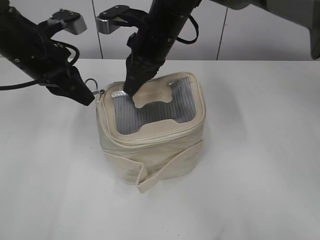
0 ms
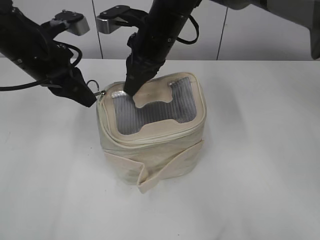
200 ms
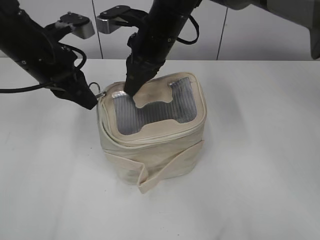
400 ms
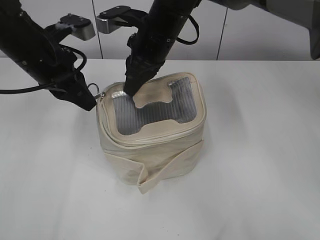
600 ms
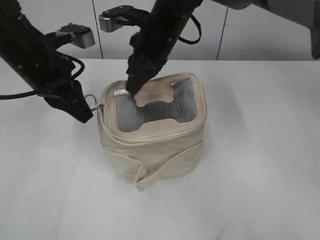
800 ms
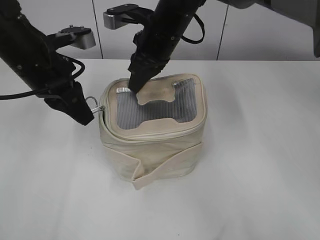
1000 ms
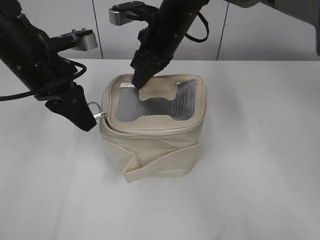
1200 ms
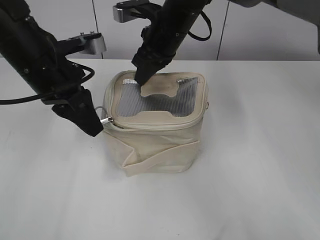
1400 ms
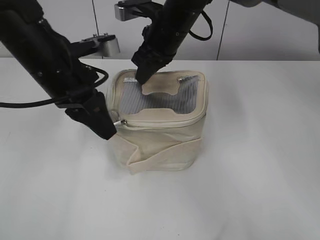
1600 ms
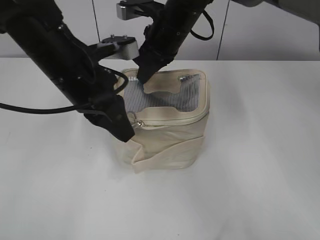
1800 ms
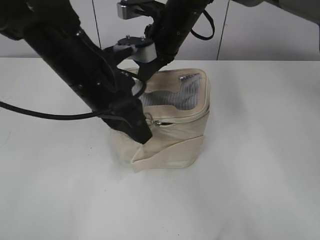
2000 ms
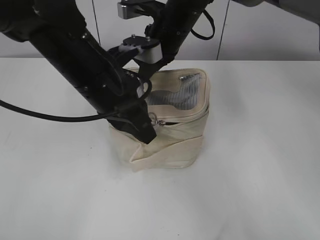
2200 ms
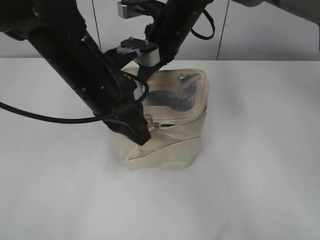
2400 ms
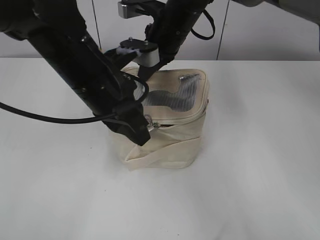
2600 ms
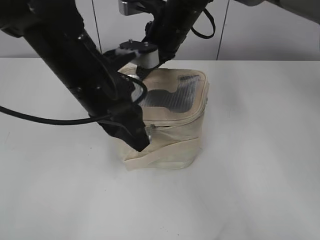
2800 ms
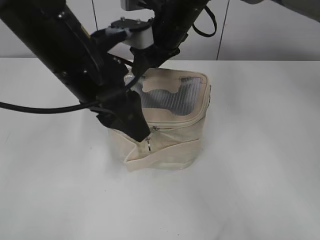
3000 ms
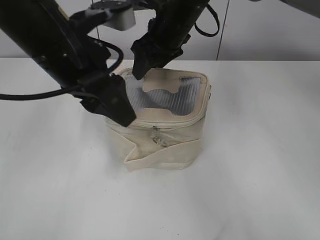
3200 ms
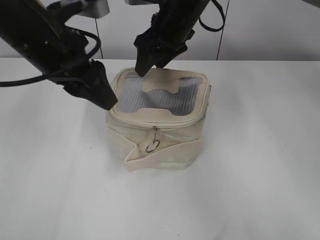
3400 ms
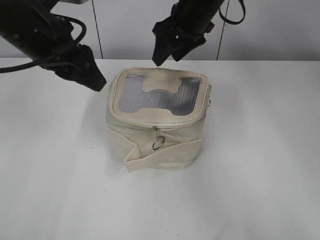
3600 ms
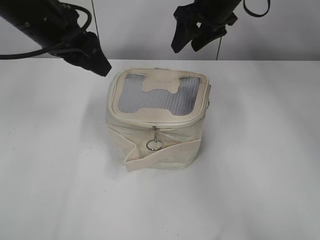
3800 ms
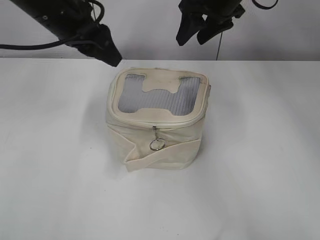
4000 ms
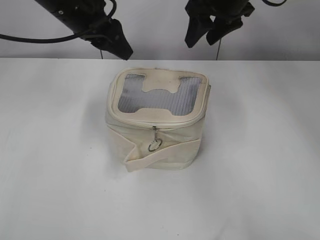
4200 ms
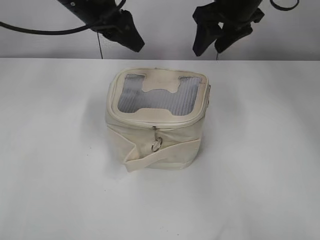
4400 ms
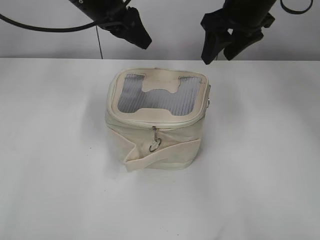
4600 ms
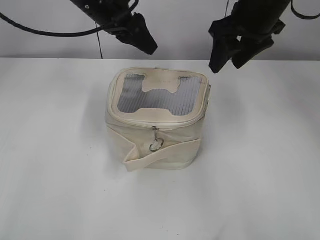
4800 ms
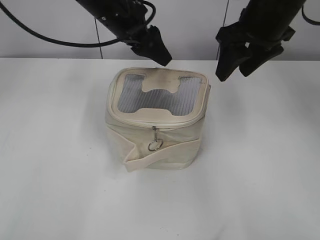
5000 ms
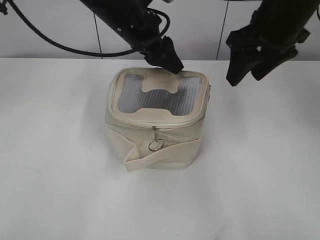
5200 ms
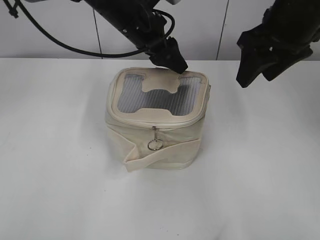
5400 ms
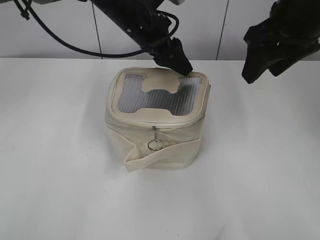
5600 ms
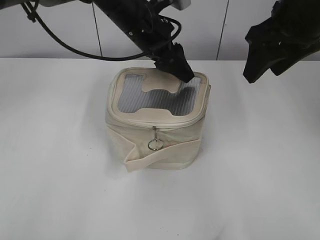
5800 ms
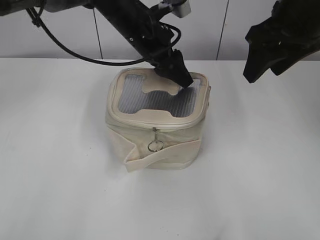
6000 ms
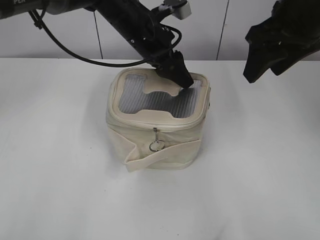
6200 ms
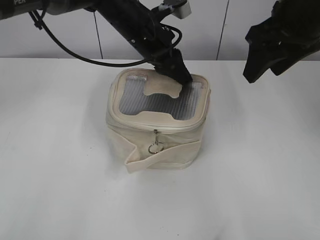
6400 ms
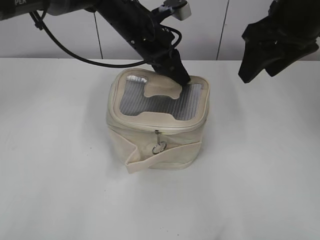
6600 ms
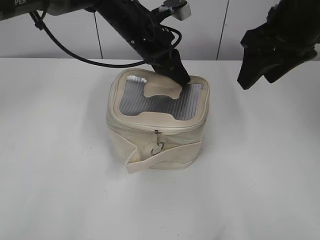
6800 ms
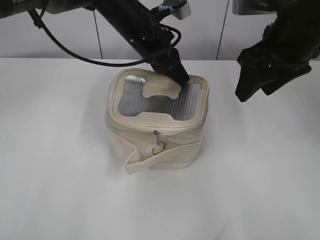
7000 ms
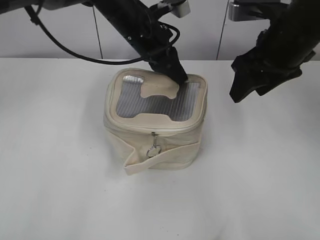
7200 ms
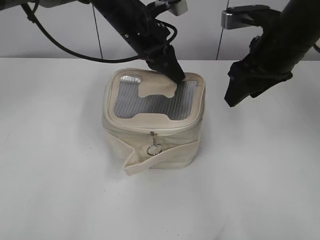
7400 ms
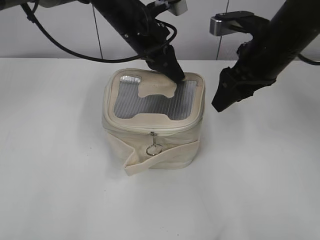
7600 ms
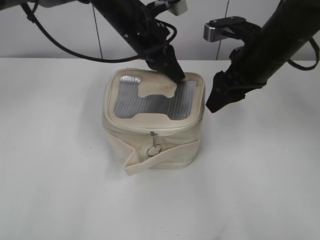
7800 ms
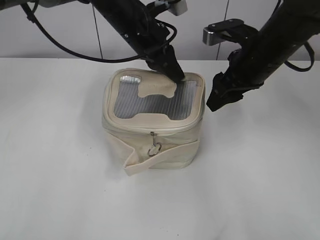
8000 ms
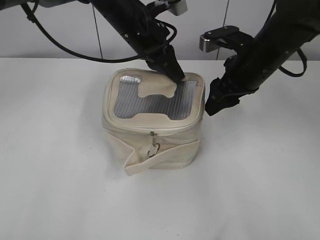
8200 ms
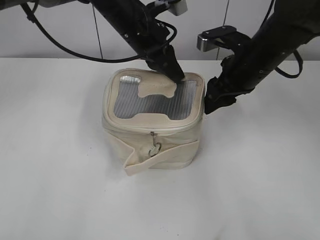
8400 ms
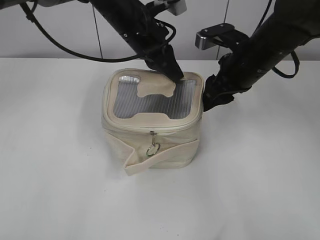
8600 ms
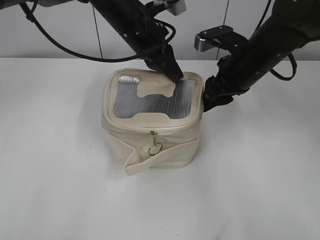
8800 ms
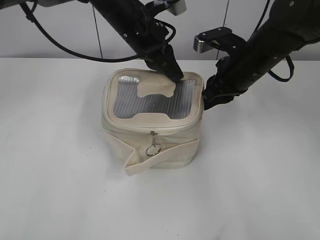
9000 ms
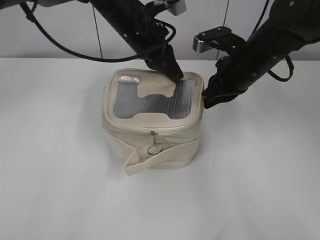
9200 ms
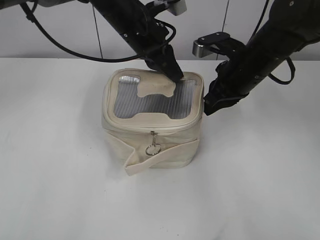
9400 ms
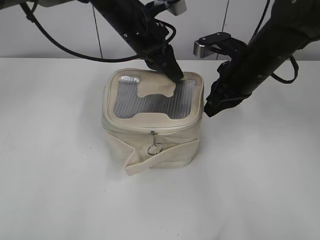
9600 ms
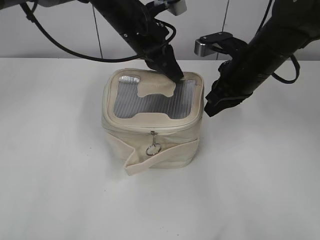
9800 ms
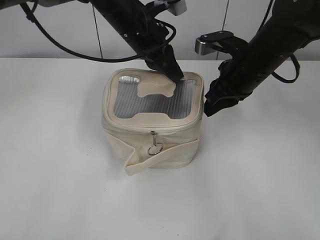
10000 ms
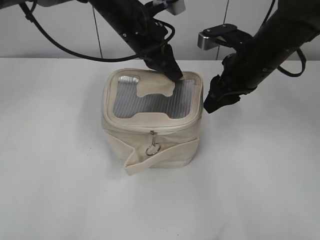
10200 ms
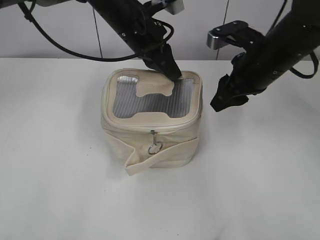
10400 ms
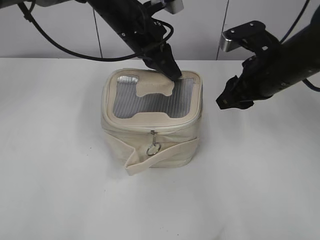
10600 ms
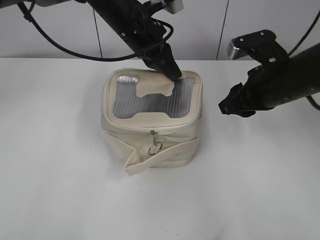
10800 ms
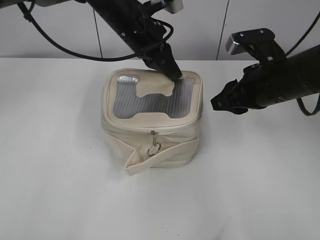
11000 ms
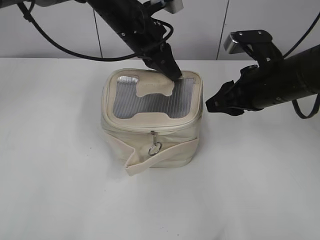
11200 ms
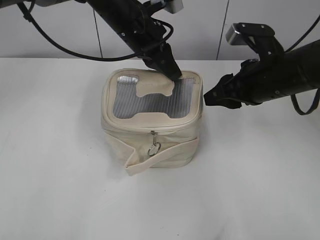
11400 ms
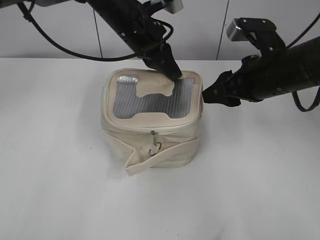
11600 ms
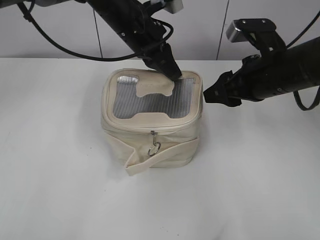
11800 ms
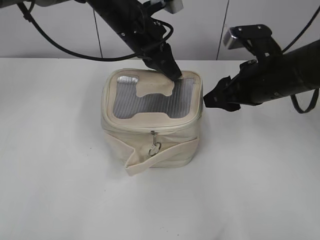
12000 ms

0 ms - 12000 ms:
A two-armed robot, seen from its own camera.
Step, 0 ms - 2800 ms: Zip up the bag with your left hand.
Step, 3000 ms - 3400 ms: Hold the bag with your right hand.
0 ms - 1600 ms: The left gripper moves to the right, roughly 5 cm.
1600 ms - 3000 ms: The right gripper opens up. Meanwhile the left gripper ends up some 5 cm from where it was, and opens its fingers.
3000 ms - 4400 ms: The right gripper moves to the right and upward, roughly 10 cm. The left gripper shifts roughly 15 cm forward.
4400 ms - 6000 ms: The left gripper goes some 10 cm to the right and downward, while the right gripper goes some 10 cm backward.
6000 ms - 7600 ms: The left gripper closes its fingers. The right gripper moves downward, about 5 cm.
7600 ms - 9000 ms: The right gripper is displaced downward by approximately 5 cm, and closes.
9000 ms - 10400 ms: There are only small adjustments of the grippers.

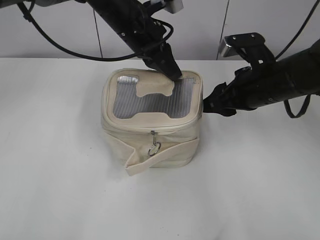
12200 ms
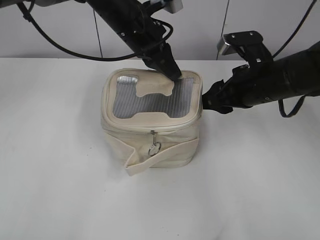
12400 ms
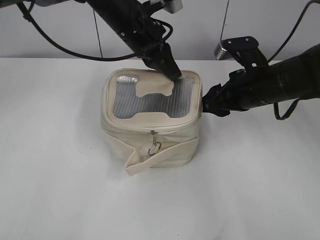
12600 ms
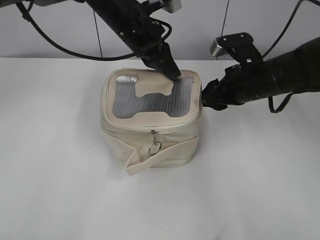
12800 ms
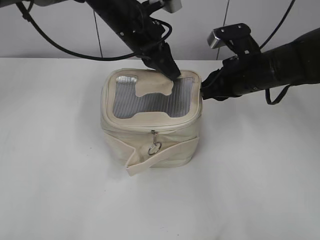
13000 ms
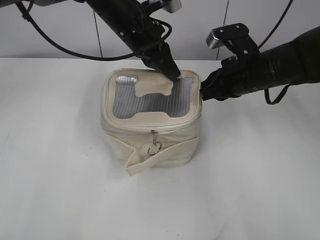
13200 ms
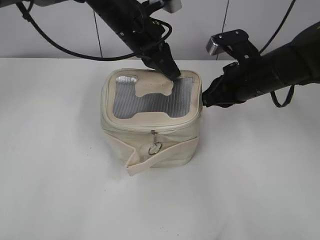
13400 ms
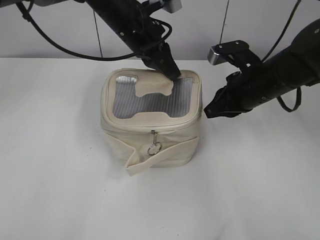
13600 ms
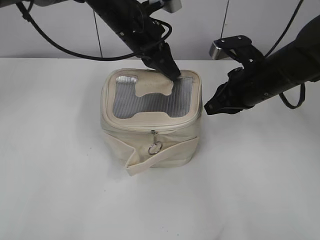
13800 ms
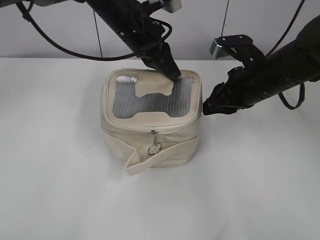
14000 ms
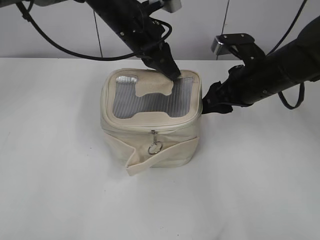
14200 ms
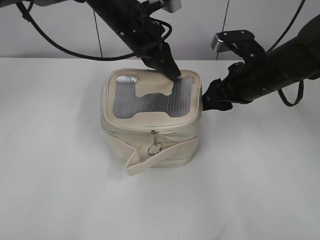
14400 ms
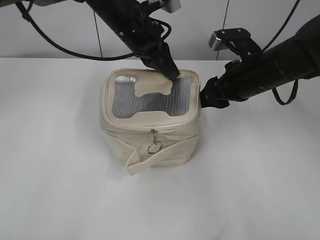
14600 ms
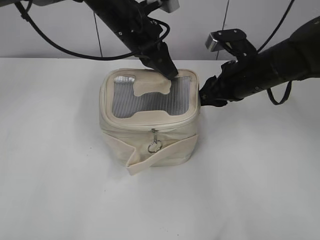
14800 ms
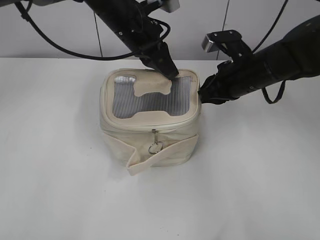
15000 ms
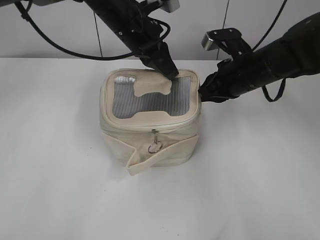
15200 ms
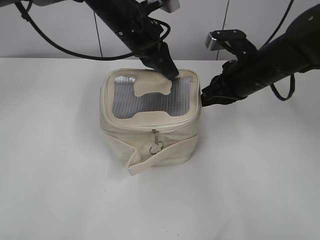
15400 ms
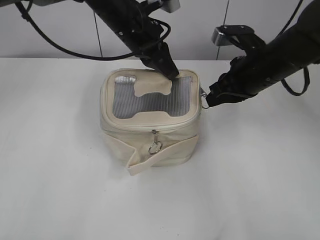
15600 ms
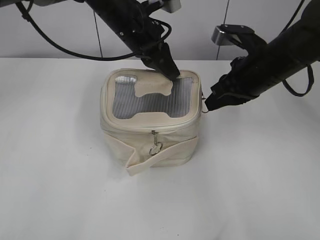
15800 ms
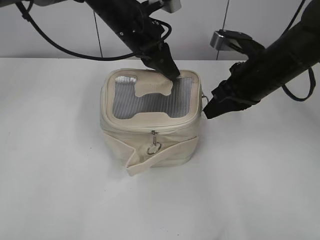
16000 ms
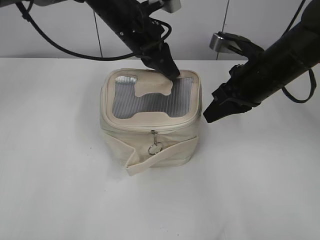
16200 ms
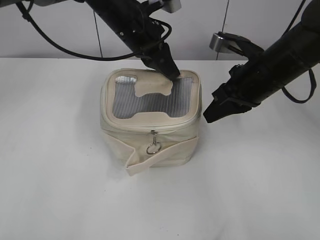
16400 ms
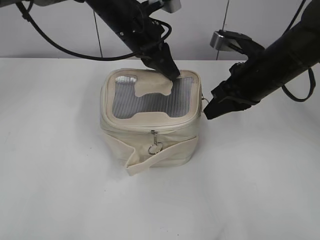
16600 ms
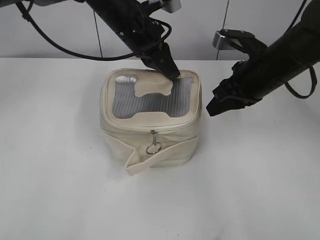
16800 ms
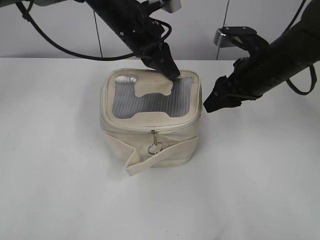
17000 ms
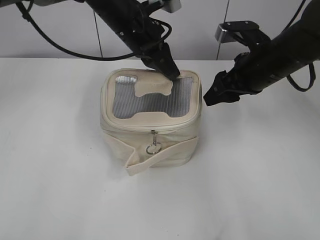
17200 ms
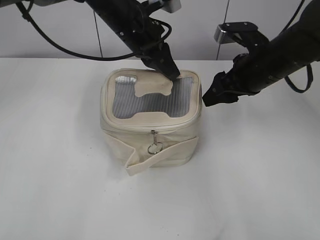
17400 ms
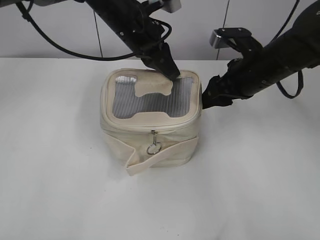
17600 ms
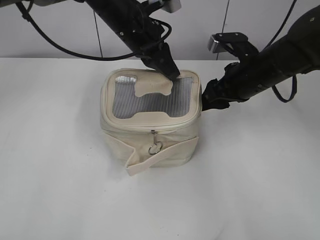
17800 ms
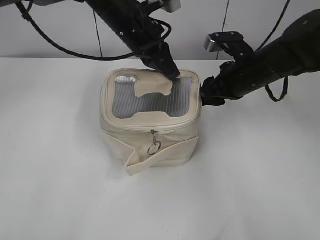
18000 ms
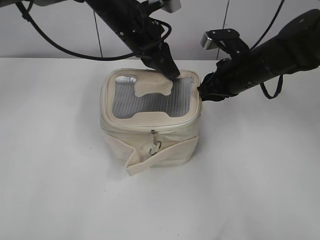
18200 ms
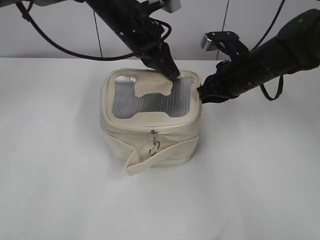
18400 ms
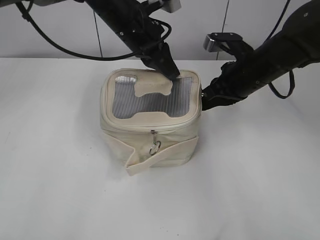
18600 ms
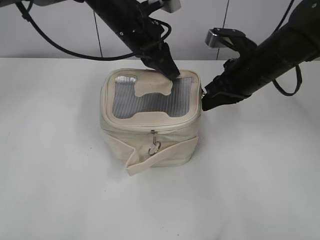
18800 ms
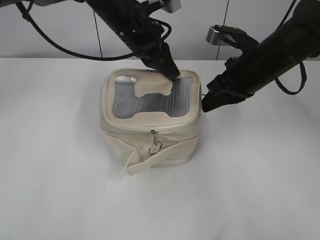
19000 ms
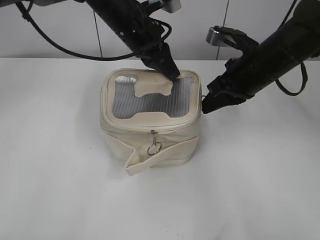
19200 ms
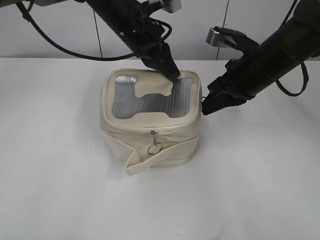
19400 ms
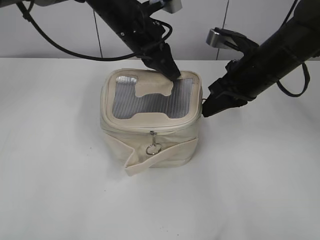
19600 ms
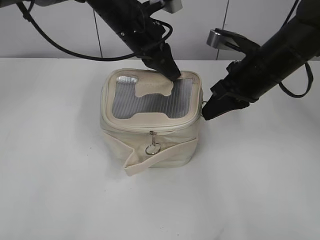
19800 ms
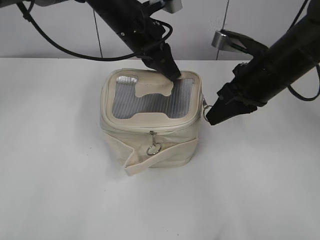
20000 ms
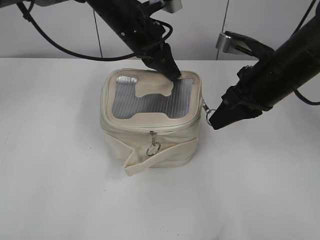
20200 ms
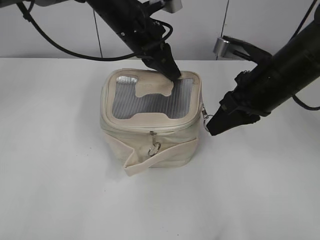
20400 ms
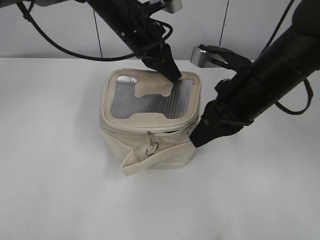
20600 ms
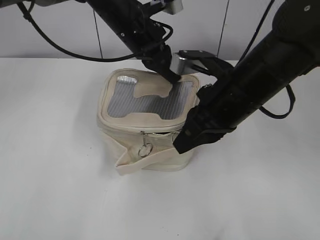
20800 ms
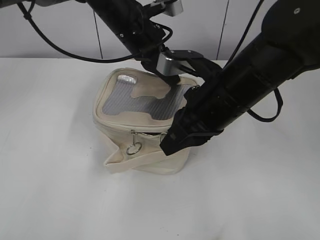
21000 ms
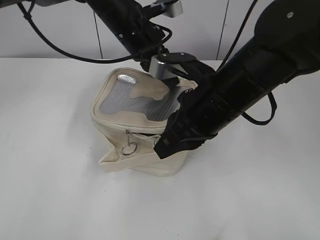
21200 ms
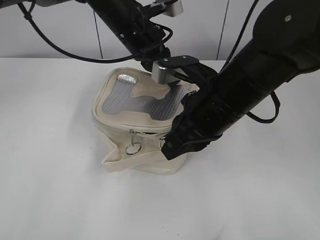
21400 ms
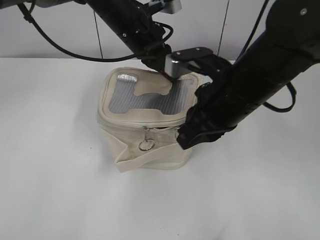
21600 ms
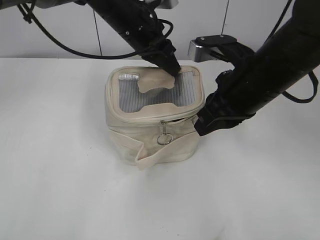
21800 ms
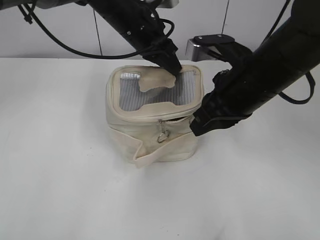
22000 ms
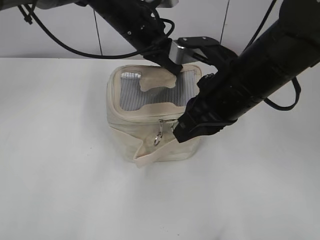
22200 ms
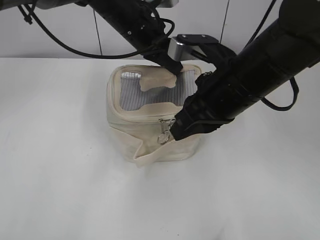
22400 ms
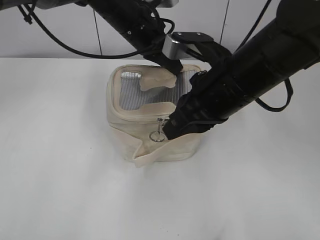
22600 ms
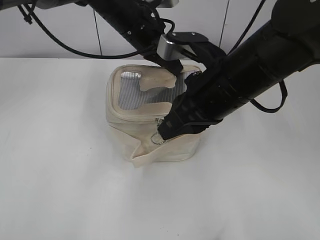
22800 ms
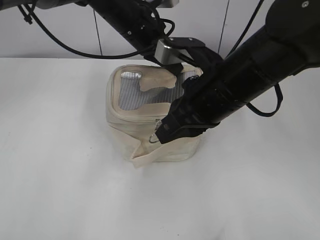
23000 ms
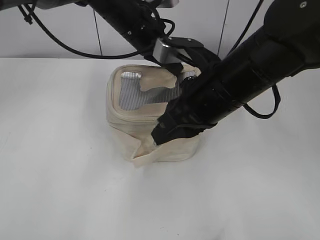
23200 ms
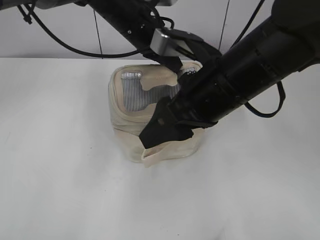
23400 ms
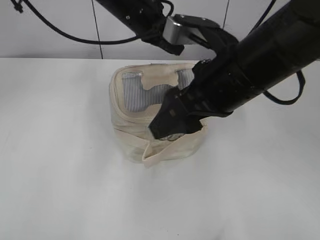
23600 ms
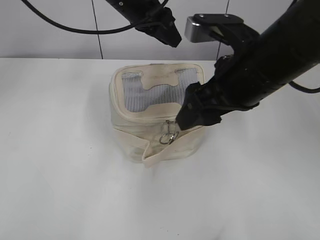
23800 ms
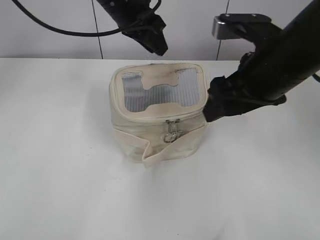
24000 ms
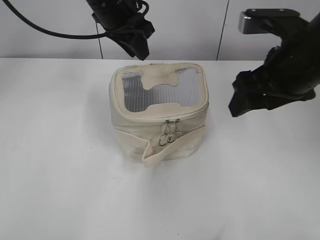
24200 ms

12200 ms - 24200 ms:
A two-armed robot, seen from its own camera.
12200 ms - 13800 ms: The right gripper closes.
13800 ms - 15200 ms: The right gripper opens and closes again.
15200 ms - 16600 ms: The grippers stay close to where they were, moving slightly.
16600 ms - 18200 ms: The right gripper shifts by roughly 5 cm, and opens, then closes again.
18200 ms - 19800 ms: The right gripper changes place by about 5 cm.
19800 ms - 21200 ms: The right gripper goes about 10 cm backward and to the left.
21200 ms - 22600 ms: The grippers stay close to where they were, moving slightly.
22600 ms - 24200 ms: The left gripper moves roughly 5 cm, and opens its fingers. The right gripper goes about 10 cm to the right, and opens its fingers.
